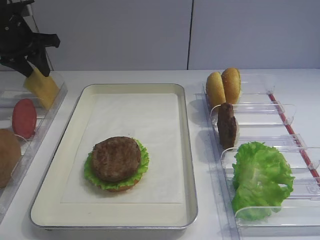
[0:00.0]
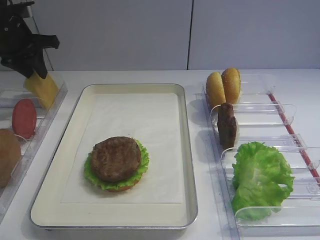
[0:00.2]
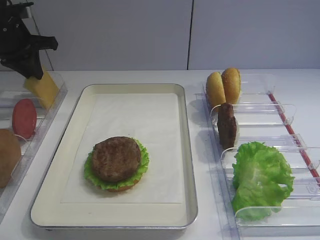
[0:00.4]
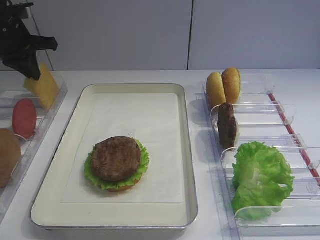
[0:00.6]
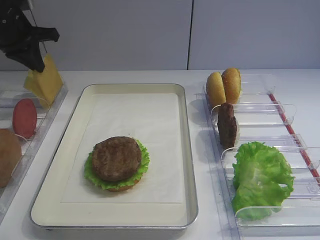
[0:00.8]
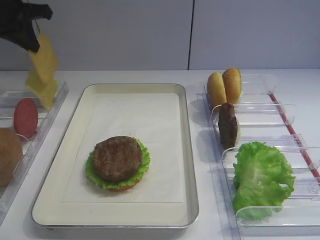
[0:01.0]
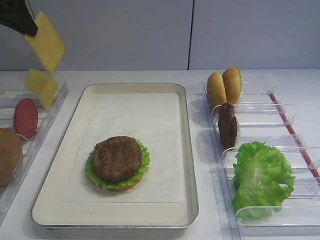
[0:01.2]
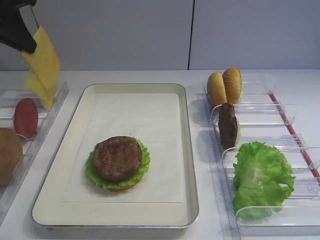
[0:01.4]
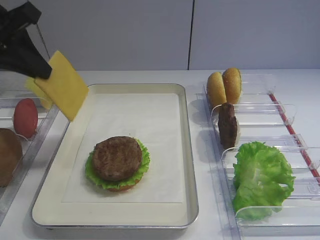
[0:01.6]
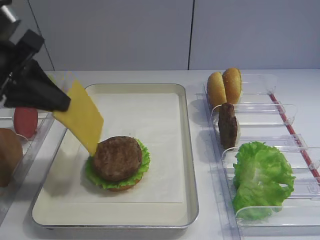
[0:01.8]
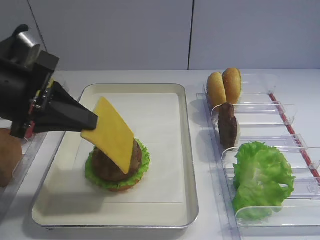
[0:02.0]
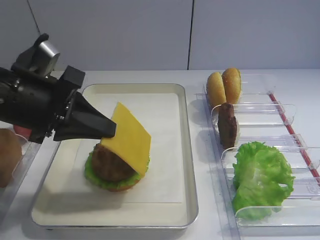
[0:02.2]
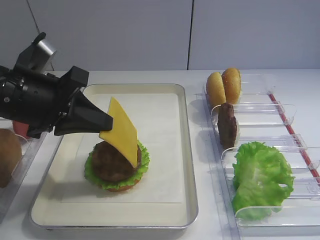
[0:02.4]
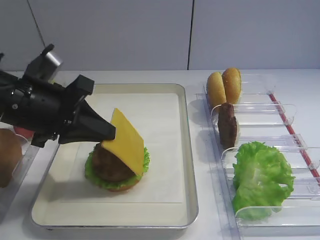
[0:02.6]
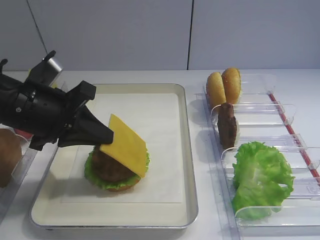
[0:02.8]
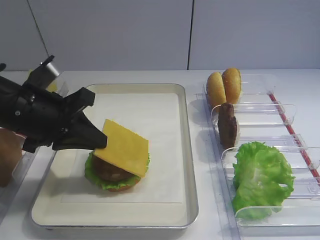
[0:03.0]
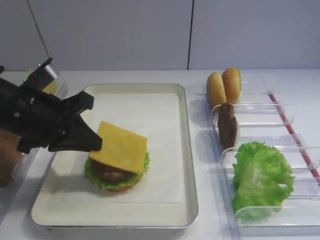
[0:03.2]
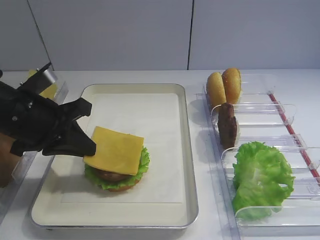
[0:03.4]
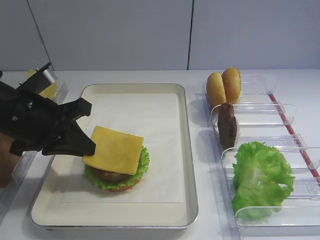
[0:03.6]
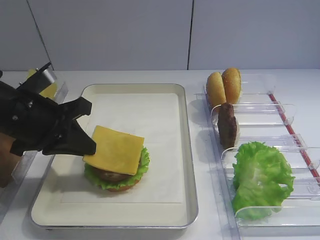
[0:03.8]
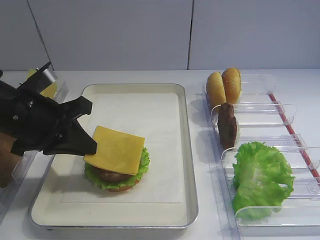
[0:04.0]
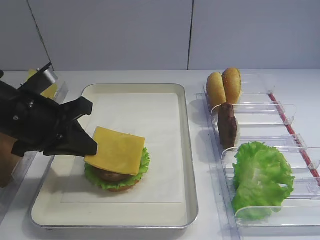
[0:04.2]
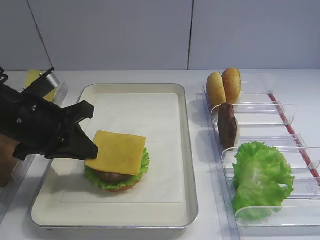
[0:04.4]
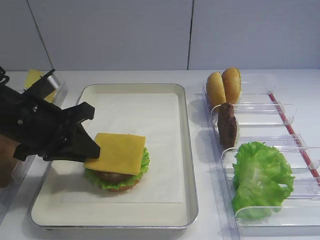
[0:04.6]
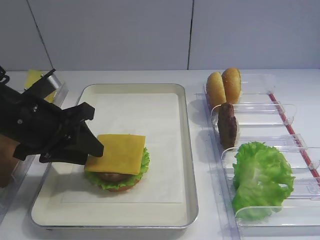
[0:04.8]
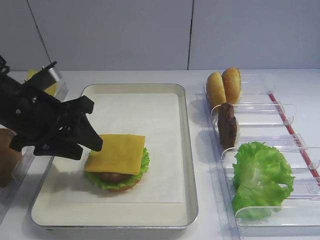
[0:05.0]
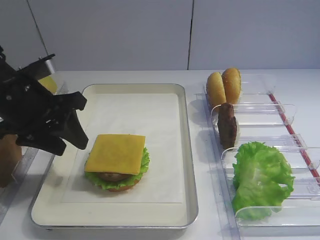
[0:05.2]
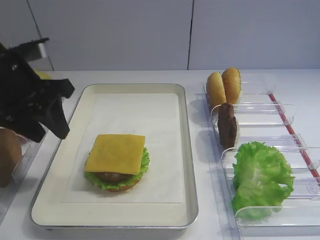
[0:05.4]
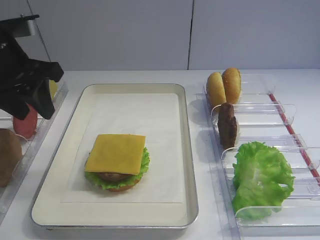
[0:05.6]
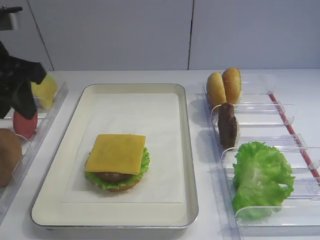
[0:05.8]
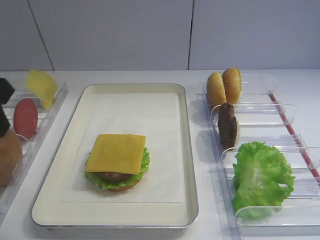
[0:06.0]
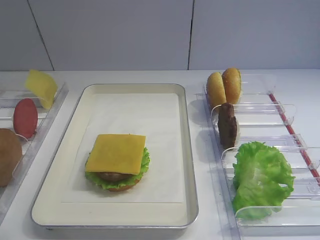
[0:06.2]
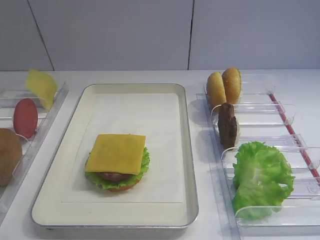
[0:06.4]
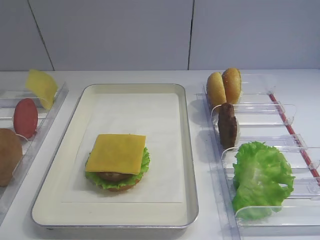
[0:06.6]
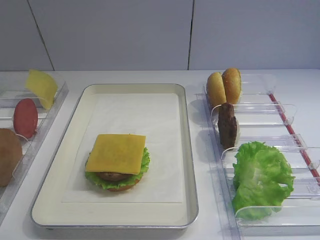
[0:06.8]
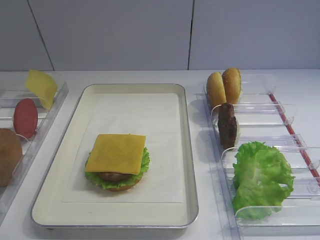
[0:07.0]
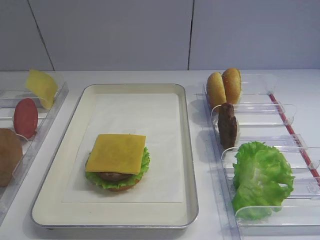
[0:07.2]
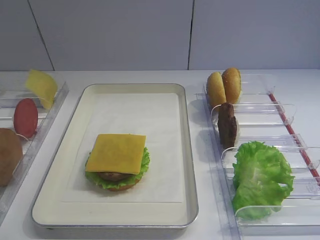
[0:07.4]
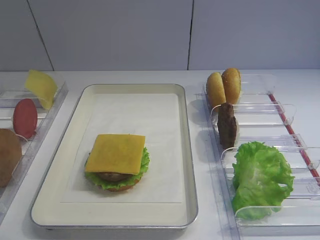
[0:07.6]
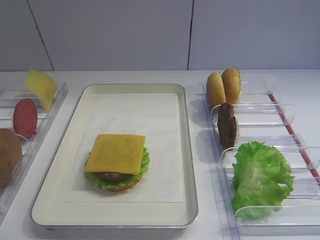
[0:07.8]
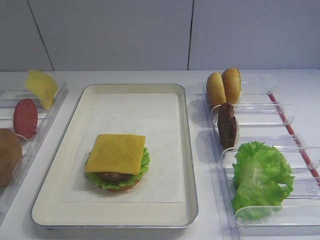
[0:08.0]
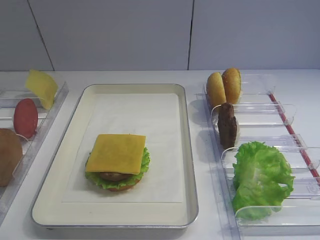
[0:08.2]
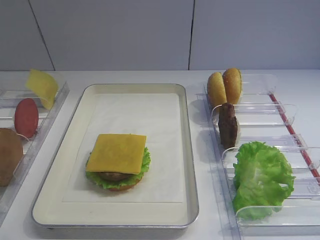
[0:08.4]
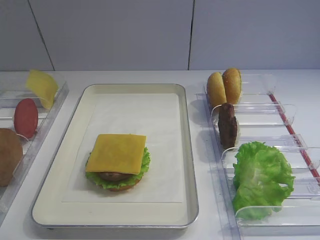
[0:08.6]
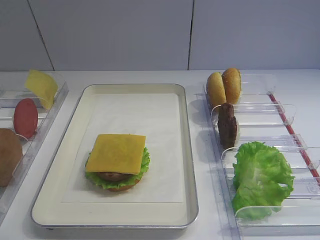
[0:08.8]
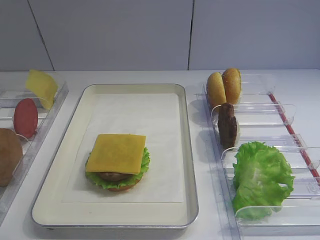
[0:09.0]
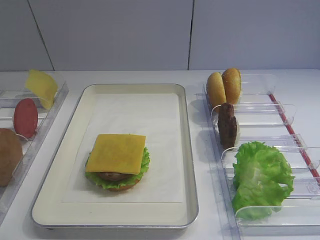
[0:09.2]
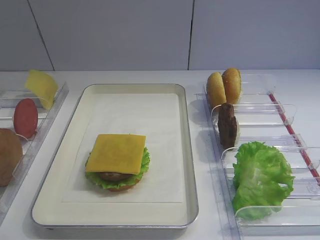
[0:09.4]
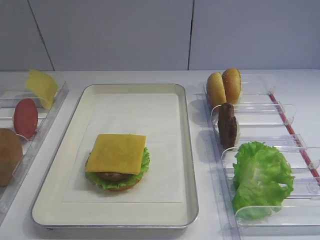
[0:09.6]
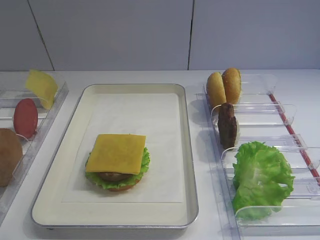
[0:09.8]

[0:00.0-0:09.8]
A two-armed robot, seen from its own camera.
Step, 0:01.2 to 0:05.2: Place the cheese slice on the cutlet with the left gripper.
0:00.0 to 0:01.4: The left gripper shifts approximately 15 cm backward and upward, and closes its fingers.
0:01.4 to 0:02.8: The left gripper shifts about 20 cm downward, backward and to the right.
0:02.8 to 0:04.2: The grippers stay close to where they were, moving slightly.
0:04.2 to 0:05.6: The left gripper heads upward, covering approximately 10 cm, and opens up.
0:05.6 to 0:07.0: The left gripper moves backward, approximately 25 cm.

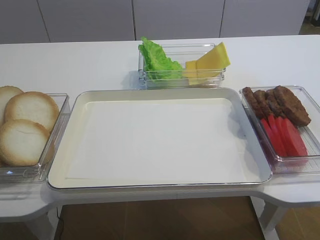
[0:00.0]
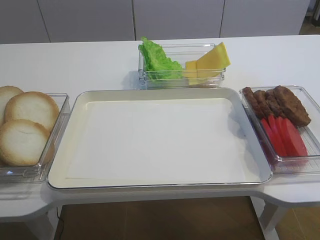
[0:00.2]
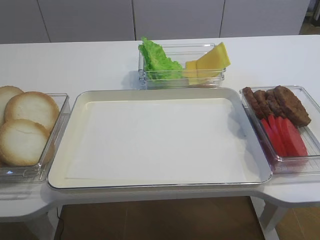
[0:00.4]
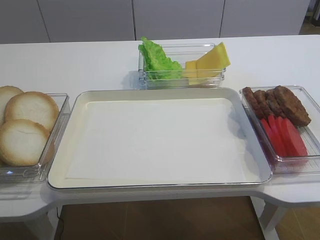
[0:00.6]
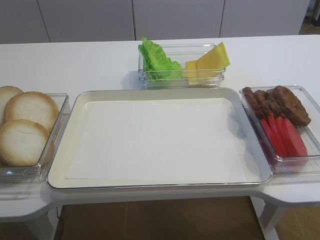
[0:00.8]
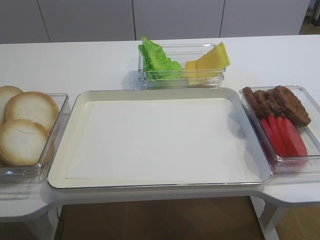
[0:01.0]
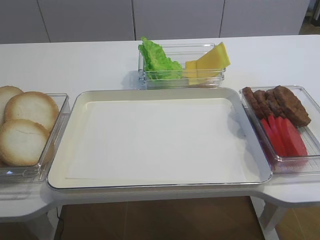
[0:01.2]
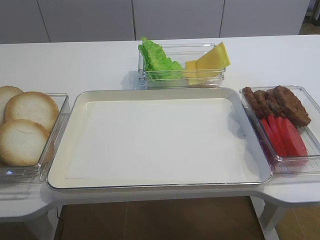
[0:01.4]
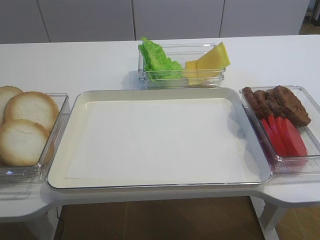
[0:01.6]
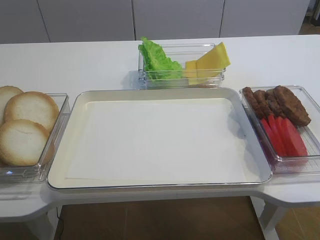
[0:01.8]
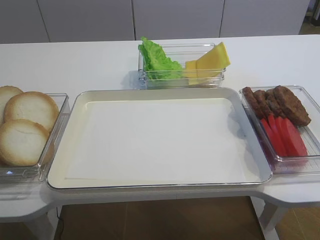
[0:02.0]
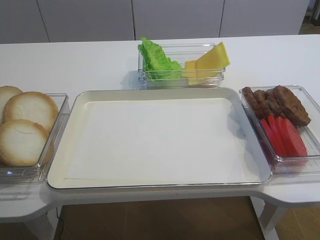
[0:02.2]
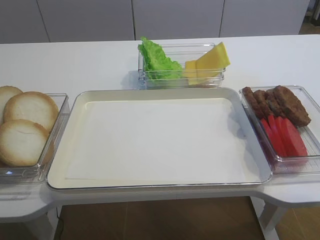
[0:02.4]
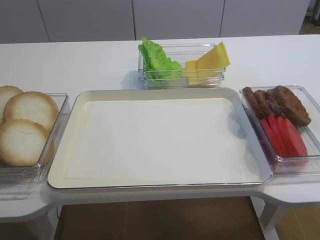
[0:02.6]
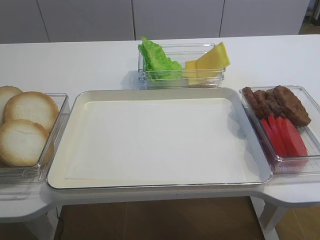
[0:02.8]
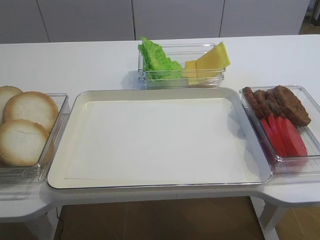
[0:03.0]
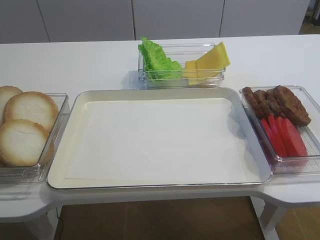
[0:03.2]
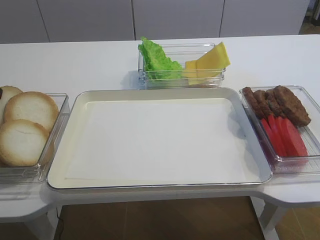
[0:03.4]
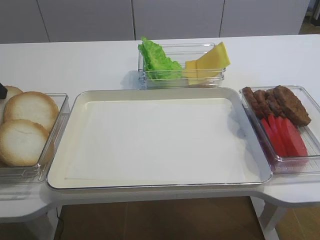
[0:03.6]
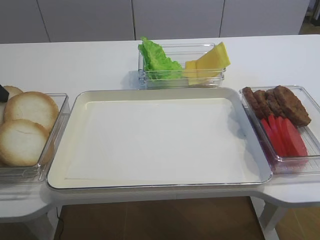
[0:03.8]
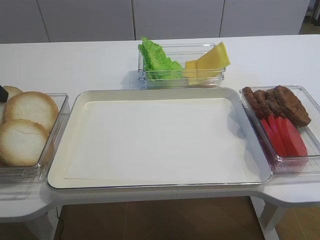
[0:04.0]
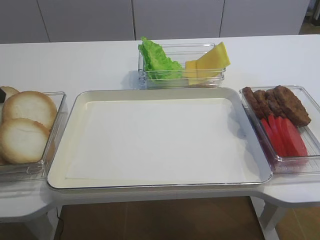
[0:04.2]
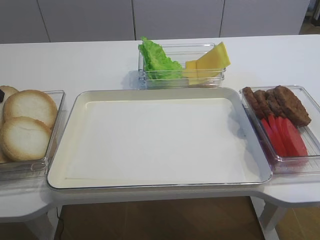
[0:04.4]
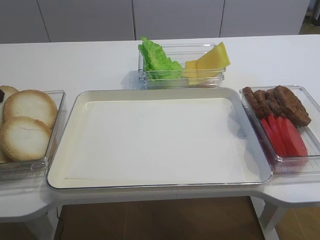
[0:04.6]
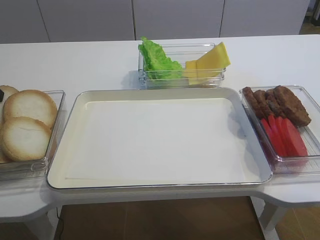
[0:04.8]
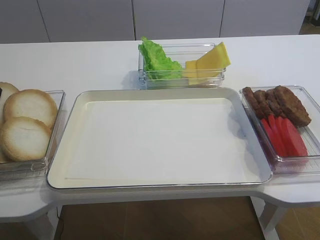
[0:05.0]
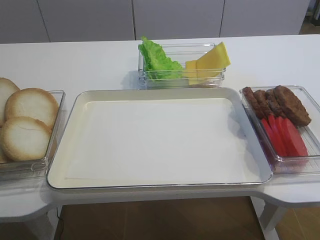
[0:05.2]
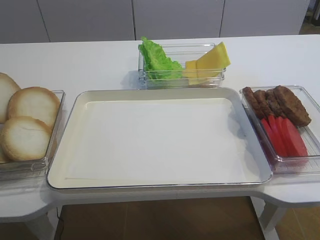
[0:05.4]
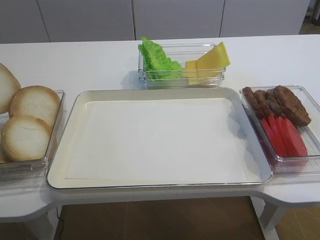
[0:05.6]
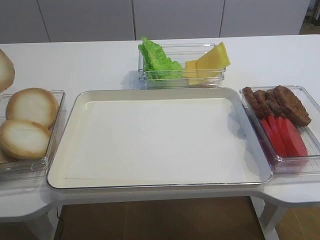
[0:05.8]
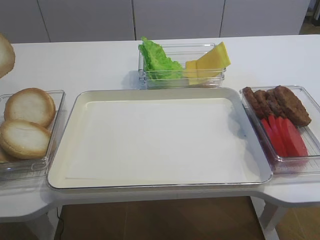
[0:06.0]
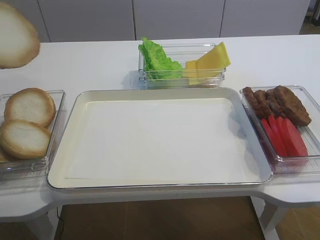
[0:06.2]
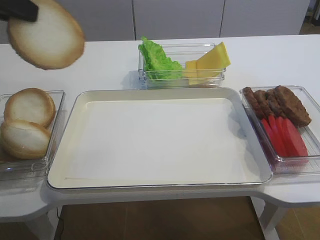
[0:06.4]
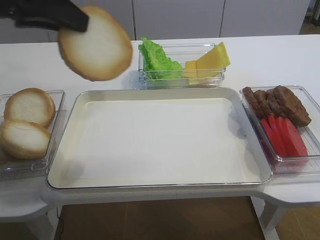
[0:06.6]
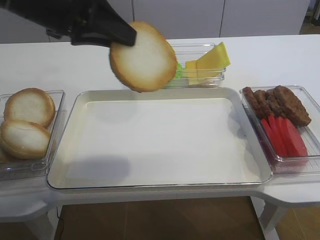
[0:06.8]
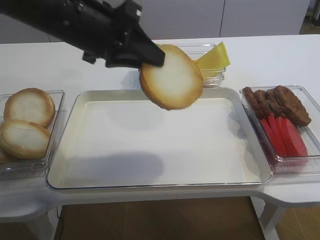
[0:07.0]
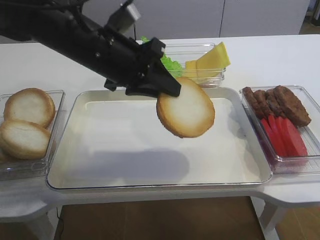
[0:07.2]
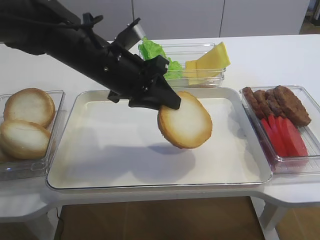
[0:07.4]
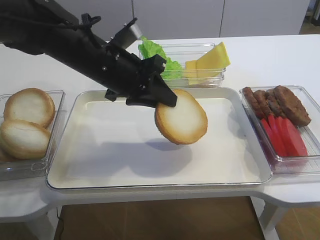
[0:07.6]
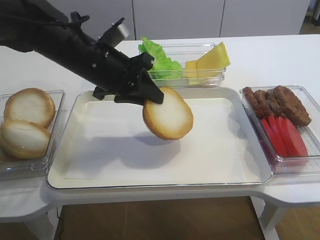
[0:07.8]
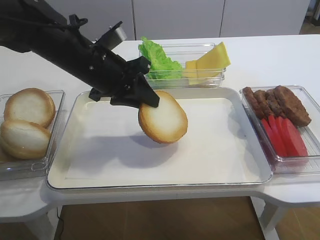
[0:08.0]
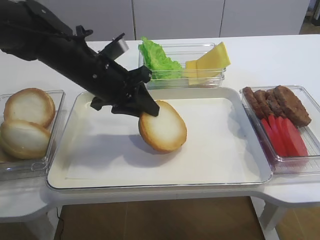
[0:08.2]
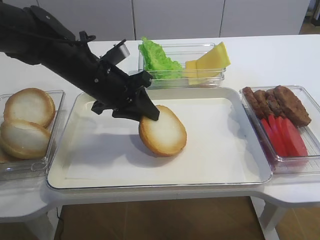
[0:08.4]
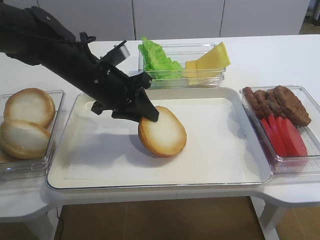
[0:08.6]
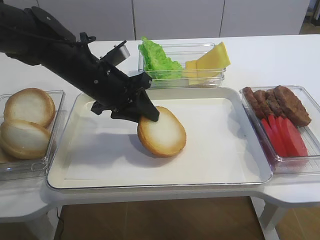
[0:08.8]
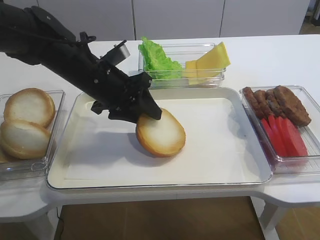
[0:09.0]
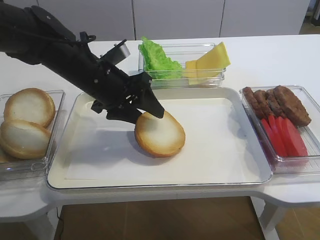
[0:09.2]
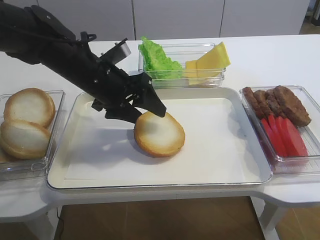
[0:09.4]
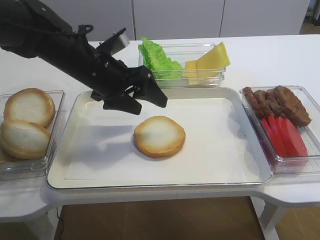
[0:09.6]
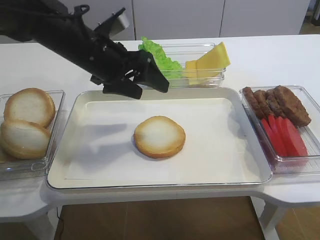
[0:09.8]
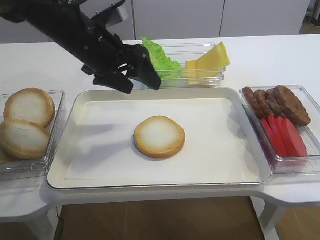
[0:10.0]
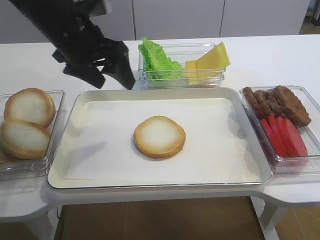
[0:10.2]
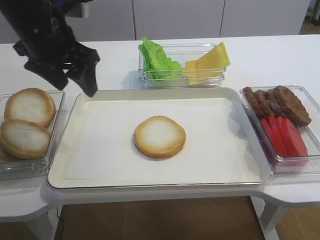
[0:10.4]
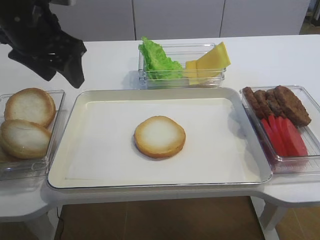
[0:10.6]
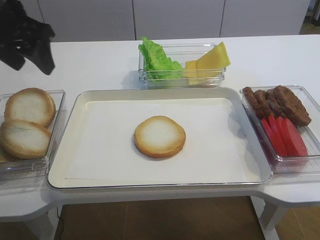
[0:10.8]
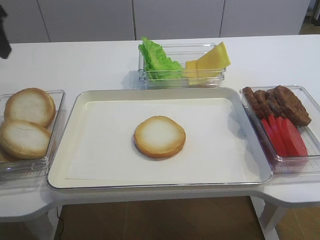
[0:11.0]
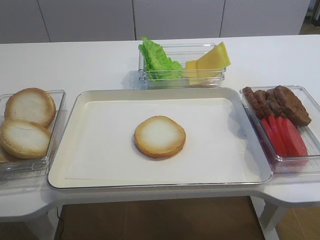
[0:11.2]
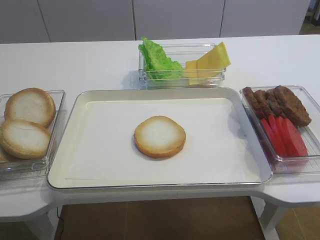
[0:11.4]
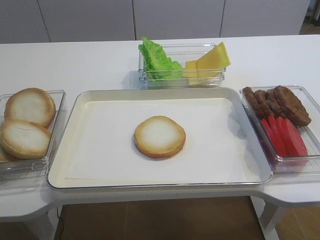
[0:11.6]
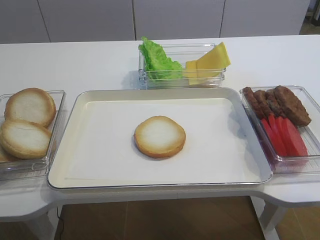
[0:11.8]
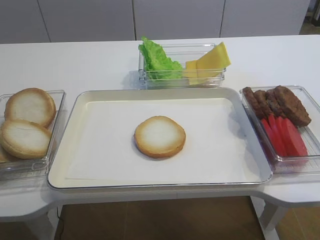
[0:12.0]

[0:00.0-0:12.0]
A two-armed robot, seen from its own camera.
Step, 0:05.8 to 0:10.0: Place the bread slice on the tray with the left gripper.
0:03.0 to 0:04.4: The left gripper closes up.
0:04.4 to 0:06.0: The left gripper moves upward and backward, about 15 cm.
0:06.0 to 0:07.6: The left gripper shifts roughly 25 cm to the right and downward.
0:07.6 to 0:09.0: The left gripper opens.
0:09.0 to 0:10.4: The left gripper is displaced upward and to the left by some 10 cm, and opens up.
0:10.4 to 0:12.0: The left gripper goes roughly 30 cm backward and to the left.

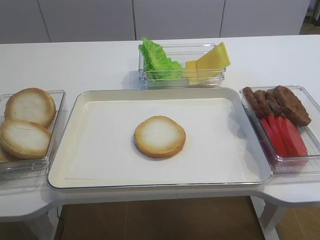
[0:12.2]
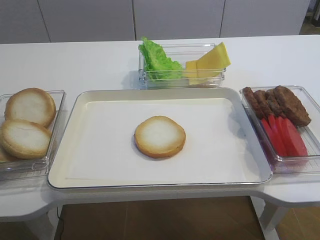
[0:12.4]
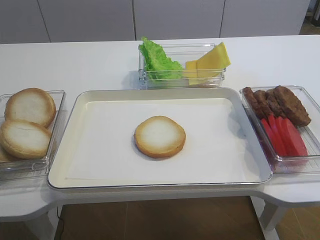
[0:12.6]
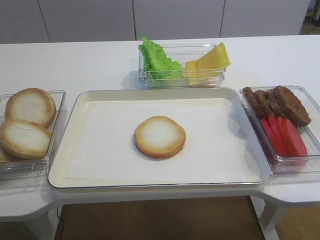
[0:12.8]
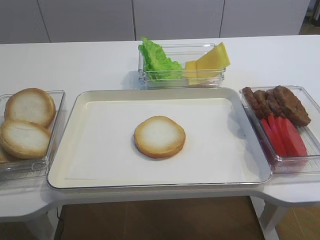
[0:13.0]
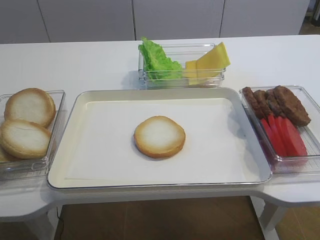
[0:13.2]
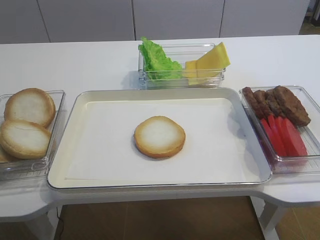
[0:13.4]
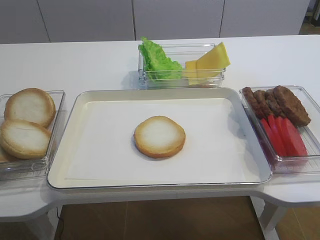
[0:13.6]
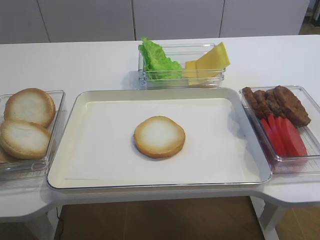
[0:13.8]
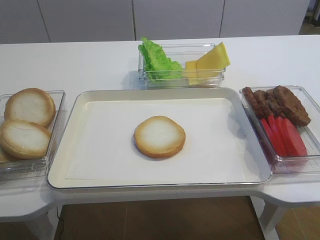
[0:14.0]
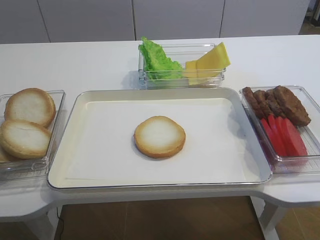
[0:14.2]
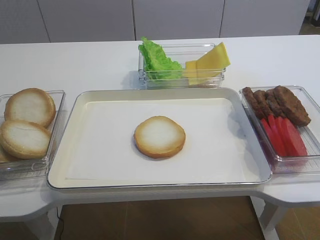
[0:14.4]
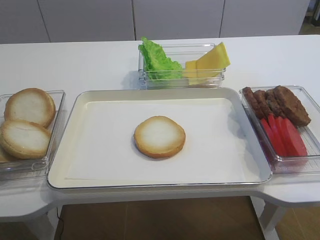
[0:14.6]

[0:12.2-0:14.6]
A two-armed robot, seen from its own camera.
0:13.4 to 0:14.6: The two grippers keep their place.
